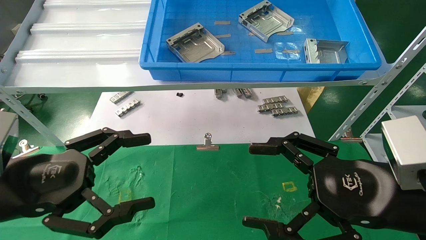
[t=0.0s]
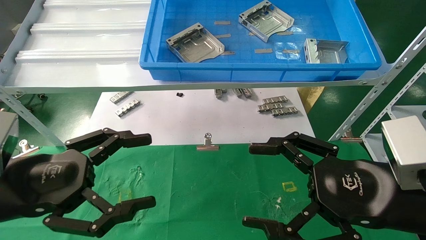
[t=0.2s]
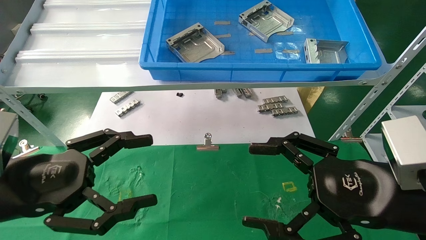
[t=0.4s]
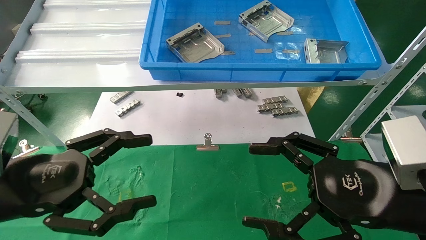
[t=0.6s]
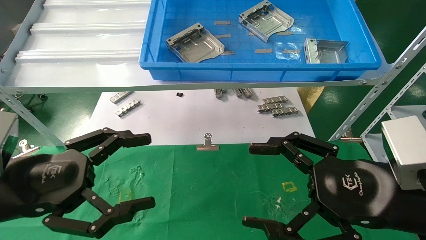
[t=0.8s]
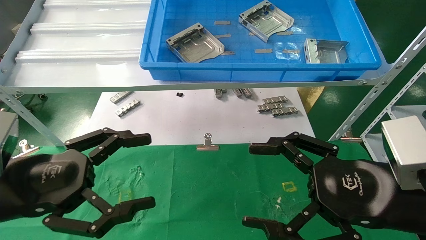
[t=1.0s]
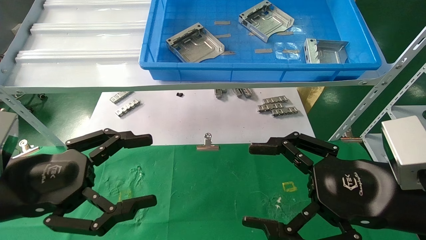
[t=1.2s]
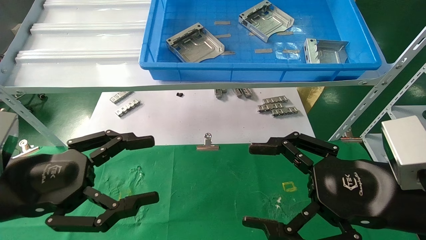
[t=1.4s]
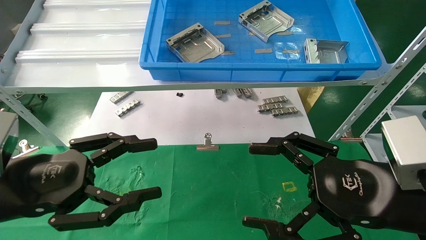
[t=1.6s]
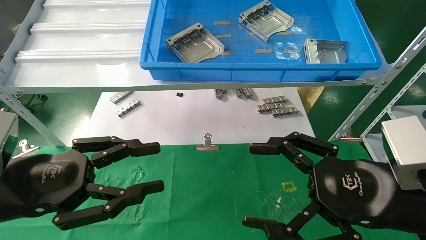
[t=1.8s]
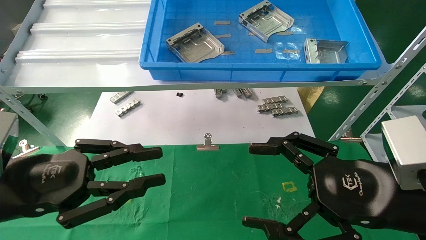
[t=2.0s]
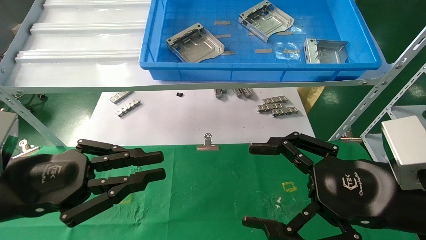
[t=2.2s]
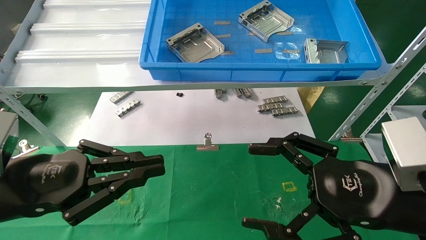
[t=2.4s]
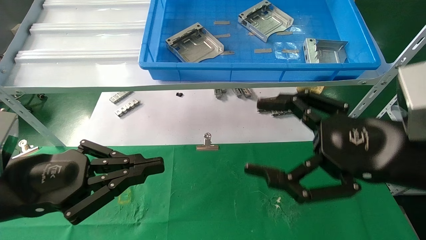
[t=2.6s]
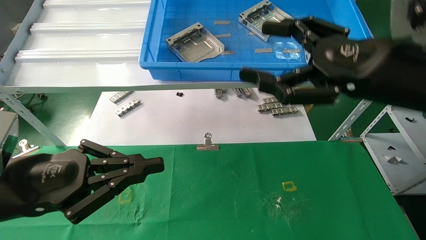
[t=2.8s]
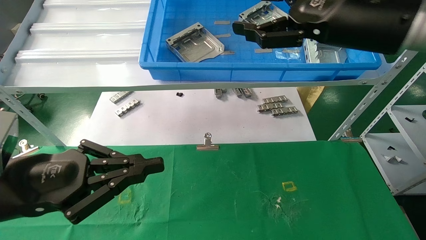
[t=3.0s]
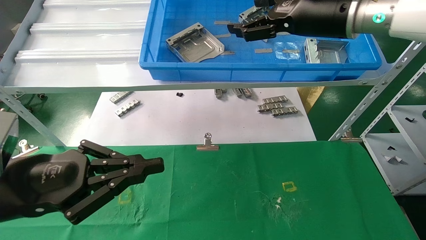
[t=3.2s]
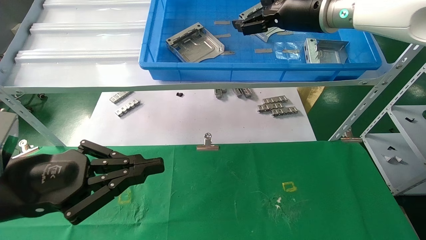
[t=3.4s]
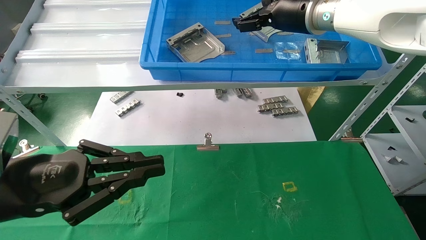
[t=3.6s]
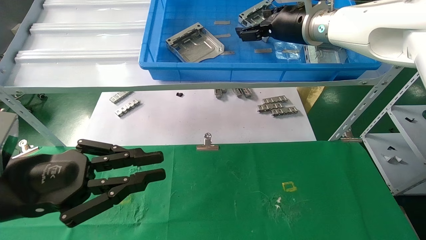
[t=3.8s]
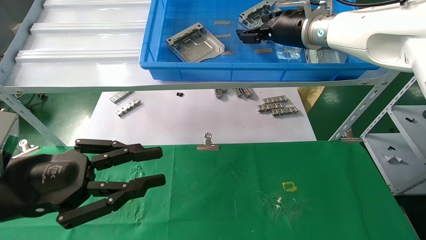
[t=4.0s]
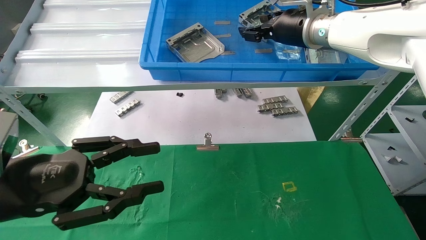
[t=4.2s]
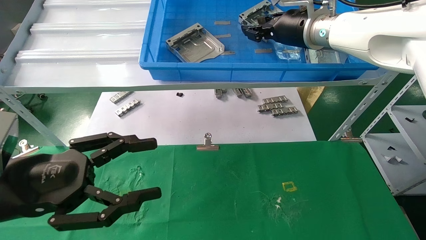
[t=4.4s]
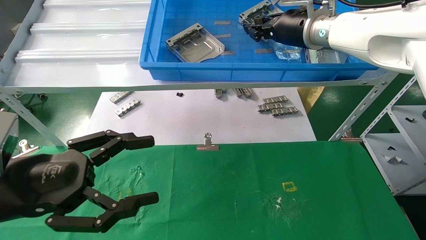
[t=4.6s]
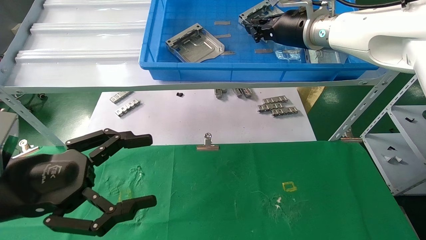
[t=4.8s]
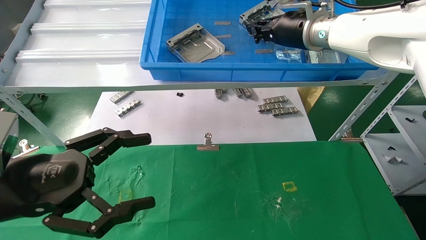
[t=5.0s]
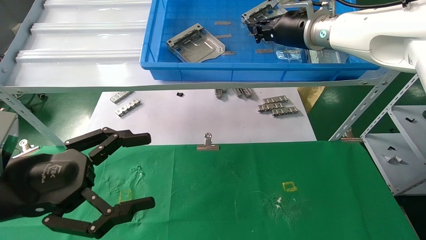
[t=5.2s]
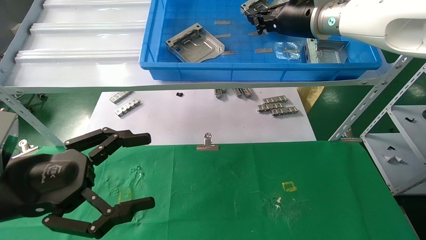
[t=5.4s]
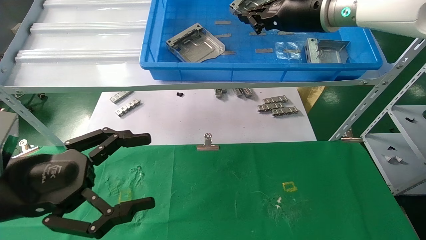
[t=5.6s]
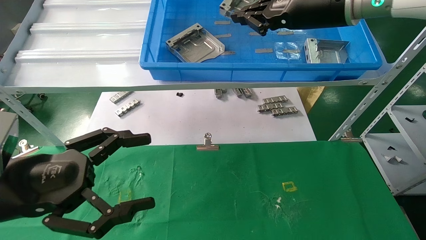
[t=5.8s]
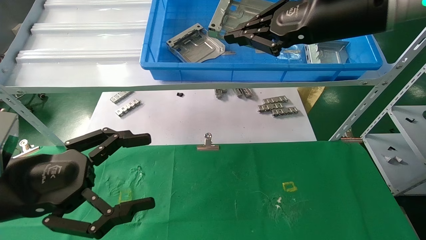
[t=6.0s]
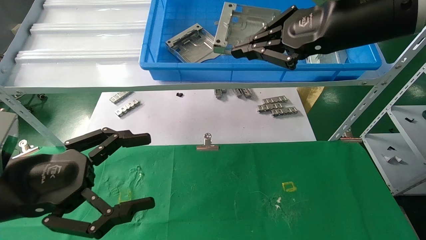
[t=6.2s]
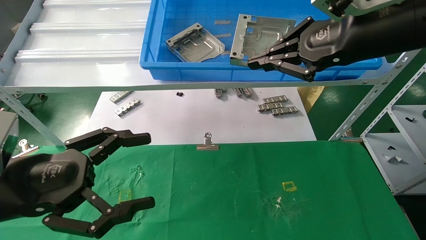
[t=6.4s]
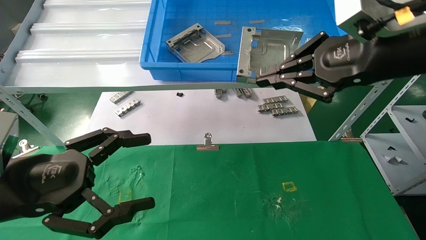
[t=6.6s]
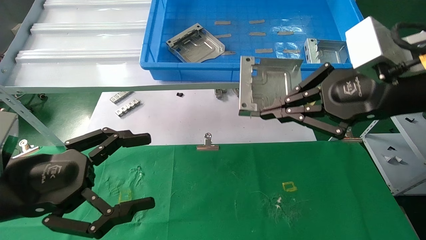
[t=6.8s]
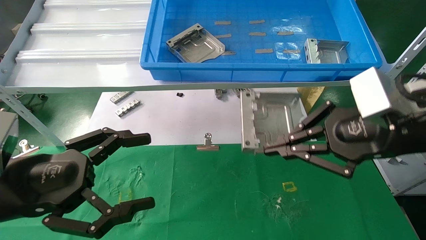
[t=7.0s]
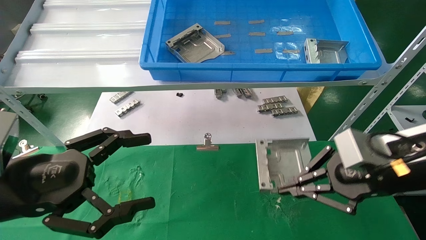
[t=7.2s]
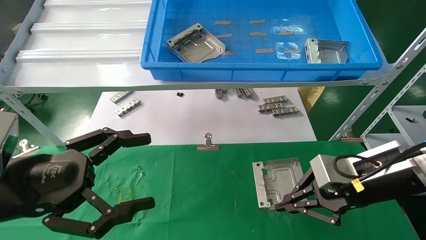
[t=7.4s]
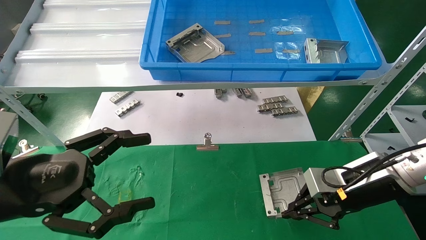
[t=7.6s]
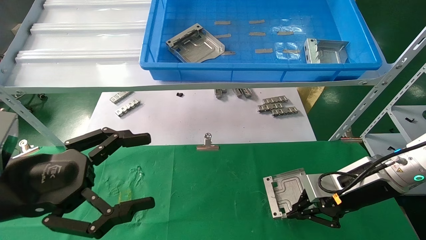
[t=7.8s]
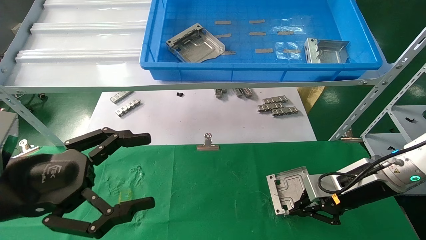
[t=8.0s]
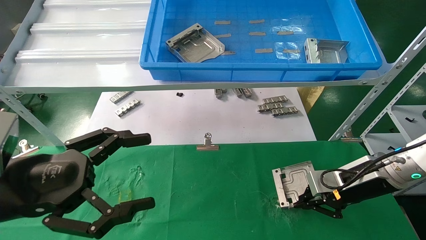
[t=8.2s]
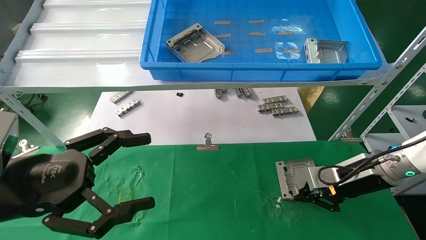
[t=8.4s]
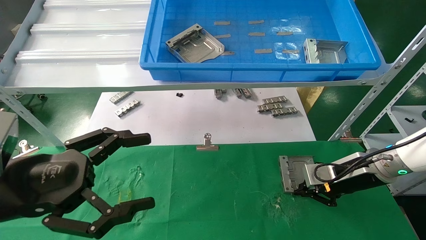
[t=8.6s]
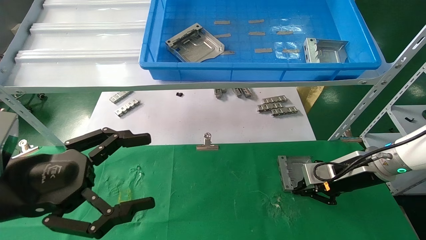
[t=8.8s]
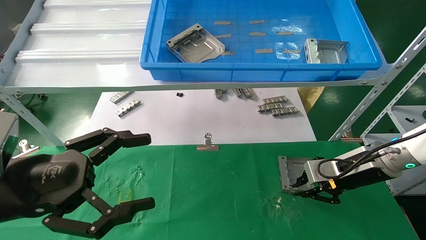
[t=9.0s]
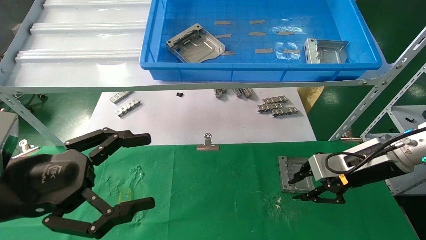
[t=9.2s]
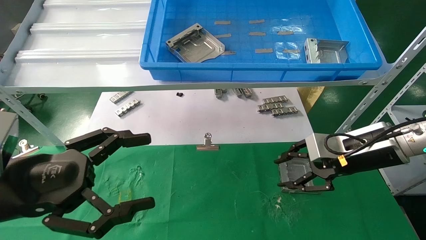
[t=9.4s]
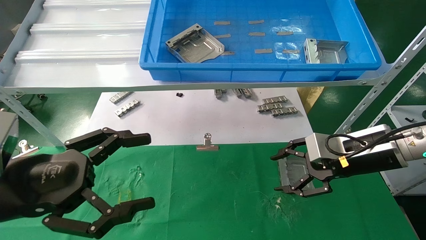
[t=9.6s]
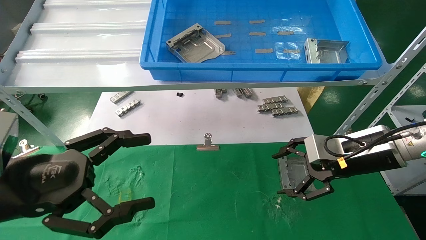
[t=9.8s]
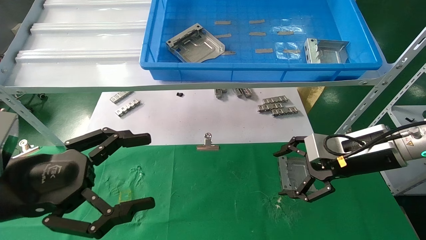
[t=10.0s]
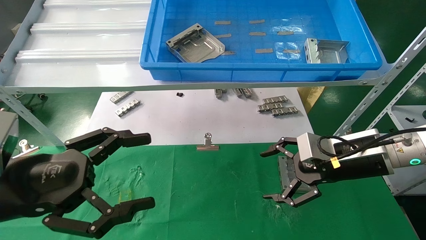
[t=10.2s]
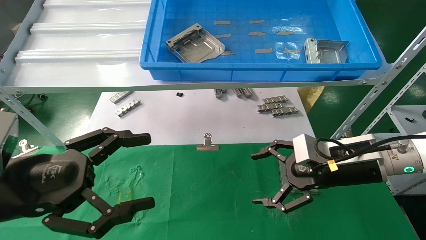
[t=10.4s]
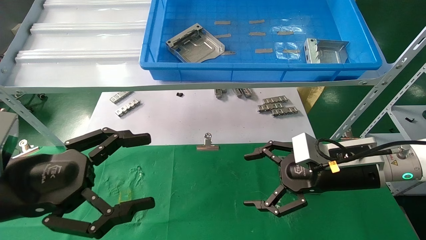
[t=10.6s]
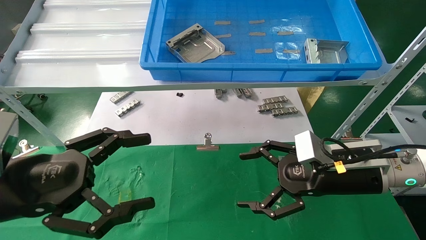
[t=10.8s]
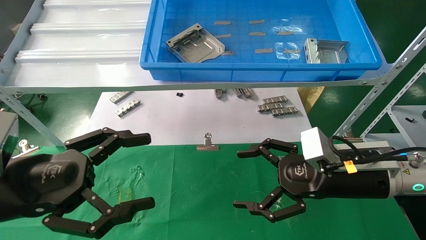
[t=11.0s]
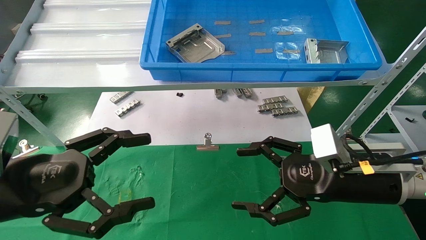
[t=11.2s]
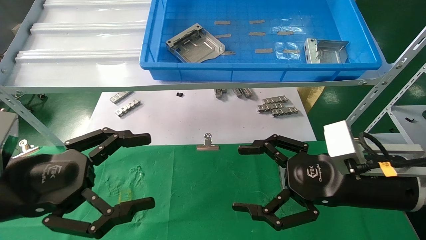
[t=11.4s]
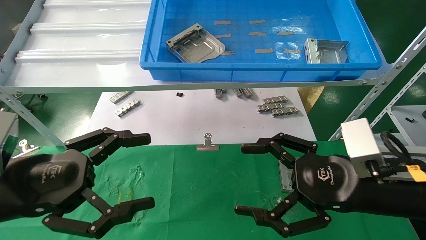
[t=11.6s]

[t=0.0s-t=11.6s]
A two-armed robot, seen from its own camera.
Task of the whole recording: use the mechanical arm to pick up the parts and place them on the table.
Step, t=2.8s to t=4.8s: Pick up the hard drive bracket from the feeding area.
Step, t=5.0s to t=9.0s: Place the hard drive bracket into the box.
t=0.0s to t=1.4s: Both grippers stay put.
t=1.4s to t=2.8s: The right gripper is displaced upward and forward by approximately 15 cm, while the left gripper closes its fingers.
t=2.8s to t=4.4s: The left gripper opens its fingers, while the right gripper moves forward, roughly 20 cm, and closes up.
t=4.4s to t=5.8s: The left gripper opens its fingers. The right gripper heads backward, covering approximately 10 cm, and closes its fingers.
t=5.8s to t=7.2s: The right gripper heads downward, backward and to the right, covering approximately 25 cm.
t=7.2s to t=8.8s: The right gripper moves forward and downward, approximately 15 cm.
t=8.8s to t=10.2s: The right gripper shifts by roughly 5 cm, and opens.
t=10.2s to t=11.6s: The right gripper shifts roughly 10 cm backward.
